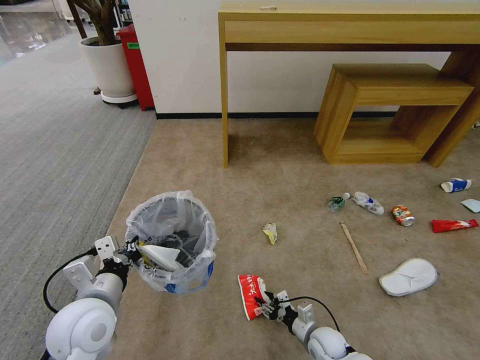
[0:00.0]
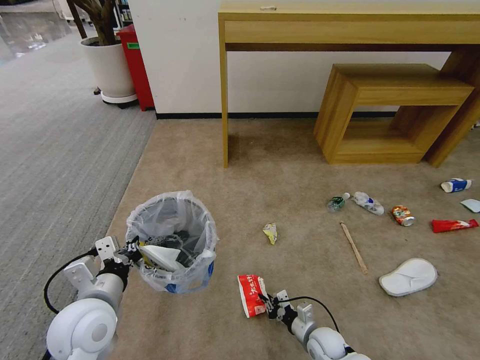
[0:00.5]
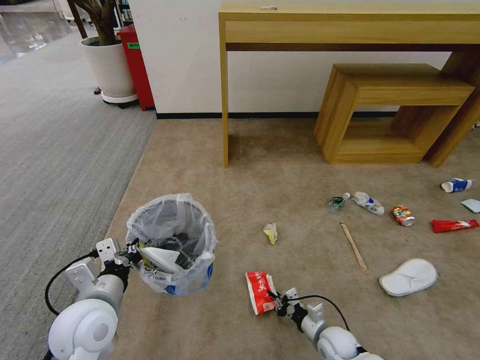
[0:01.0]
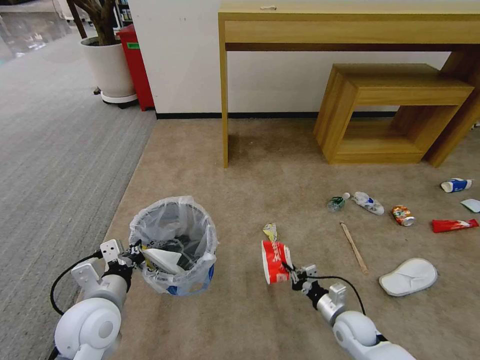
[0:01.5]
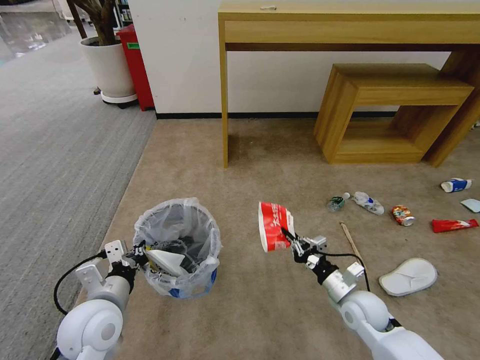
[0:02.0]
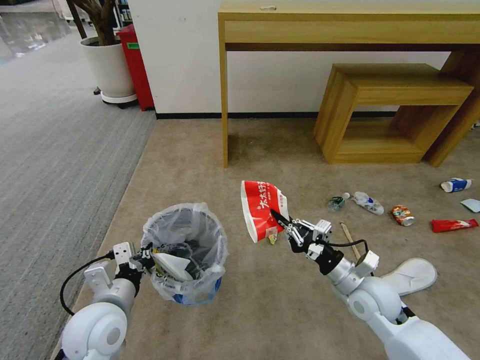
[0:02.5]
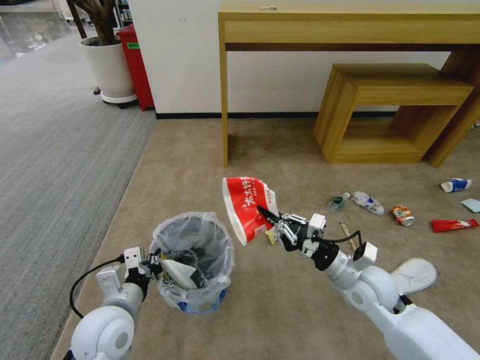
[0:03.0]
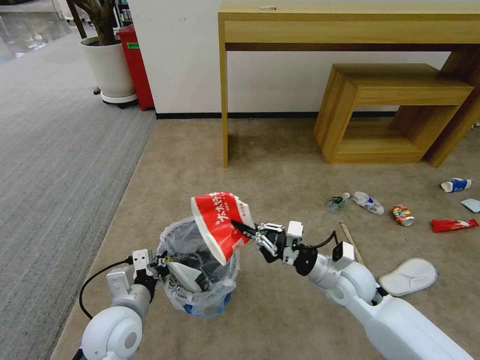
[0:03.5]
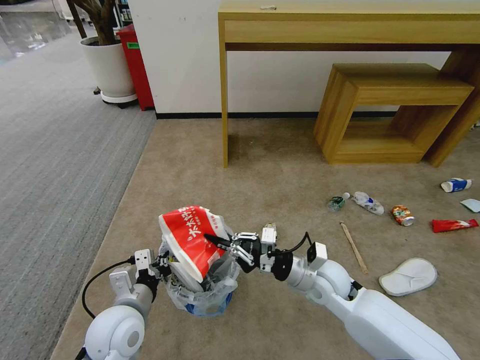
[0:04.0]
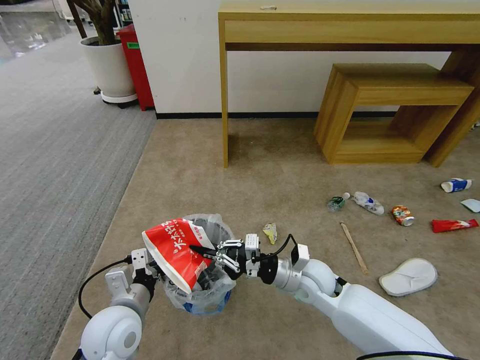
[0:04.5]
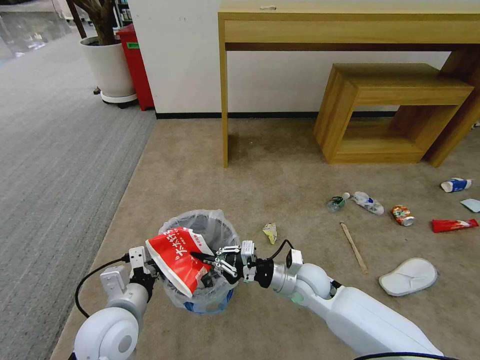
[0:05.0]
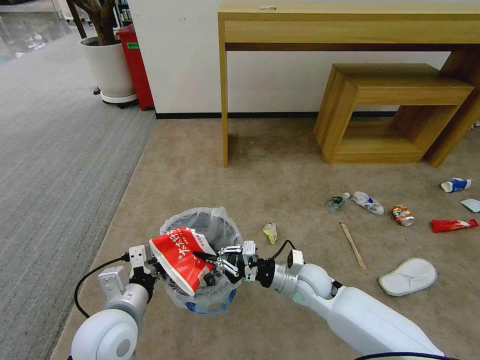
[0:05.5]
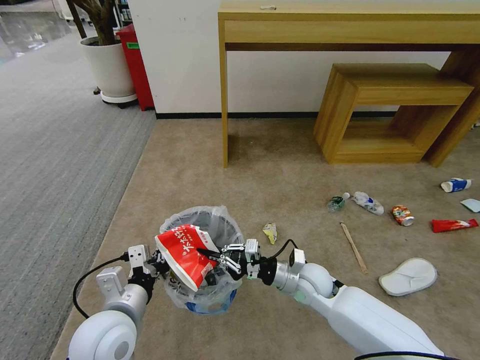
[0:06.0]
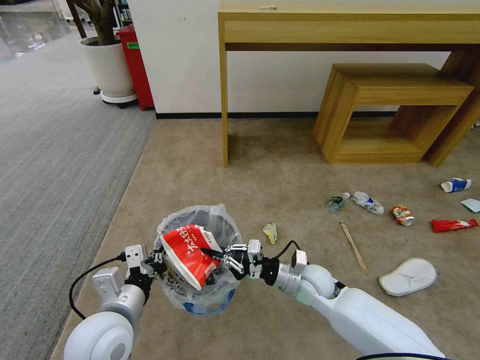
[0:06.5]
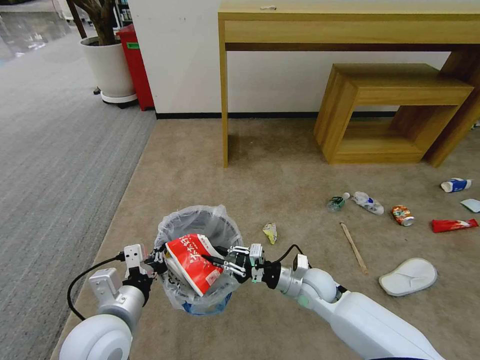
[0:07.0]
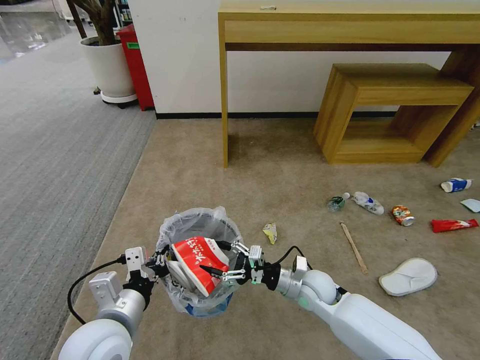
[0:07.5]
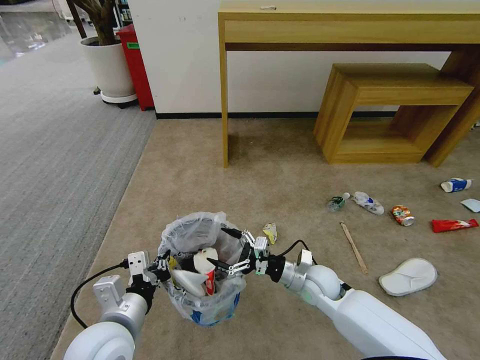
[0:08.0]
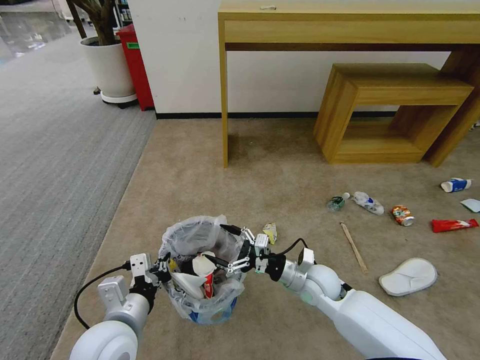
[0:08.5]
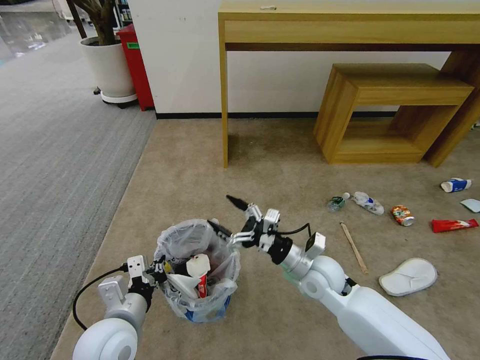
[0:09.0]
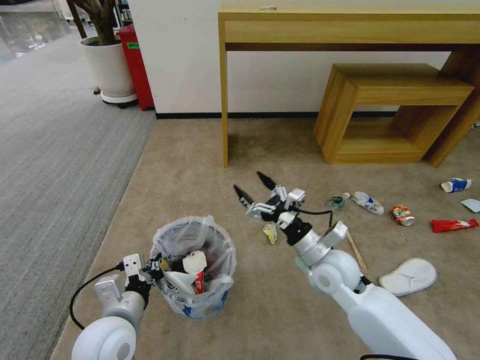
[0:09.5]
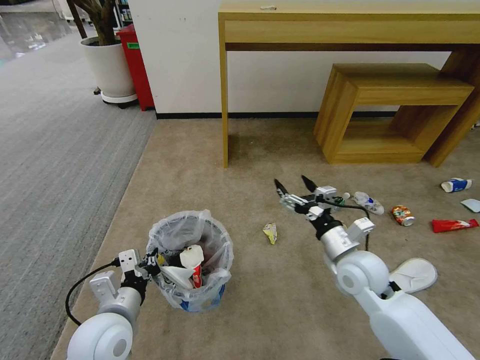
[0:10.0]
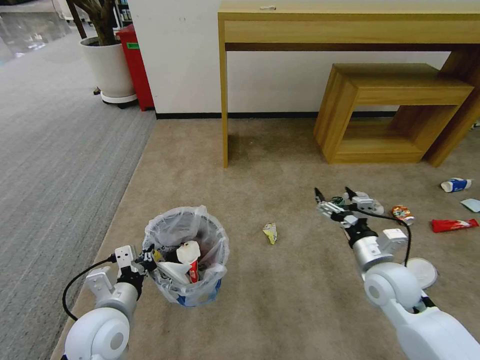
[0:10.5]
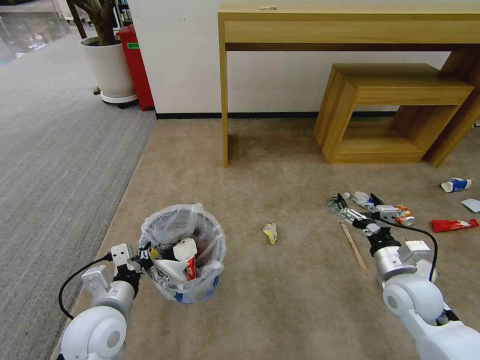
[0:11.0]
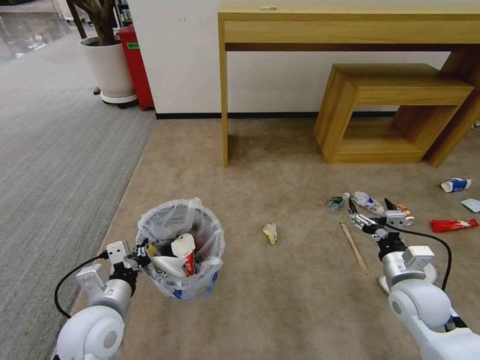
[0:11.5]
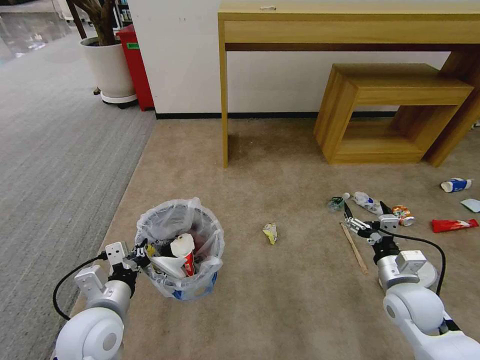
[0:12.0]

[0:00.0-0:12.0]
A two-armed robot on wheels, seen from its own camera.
Task of the whole recording: Pick up the trash bin and place the garbage on the floor into it.
0:00.0 to 0:02.0: The right gripper shifts roughly 15 cm upward, and closes its fingers.
0:02.0 to 0:04.0: The right gripper heads to the left and upward, covering approximately 15 cm.
0:04.0 to 0:06.0: The right gripper goes some 5 cm downward.
0:06.0 to 0:08.0: The right gripper opens.
0:08.0 to 0:10.0: The right gripper travels upward and to the right by approximately 10 cm.
0:10.0 to 0:12.0: The right gripper goes approximately 10 cm to the right and backward.

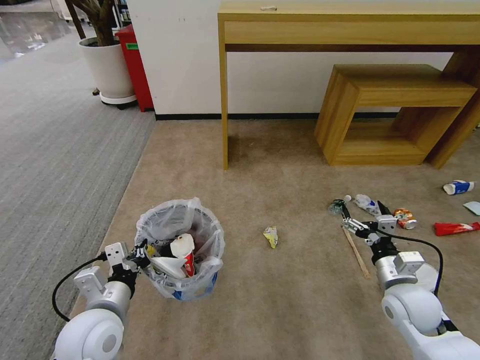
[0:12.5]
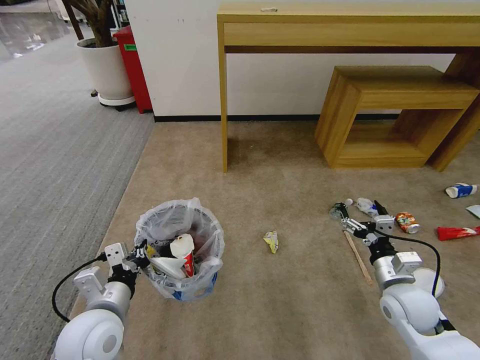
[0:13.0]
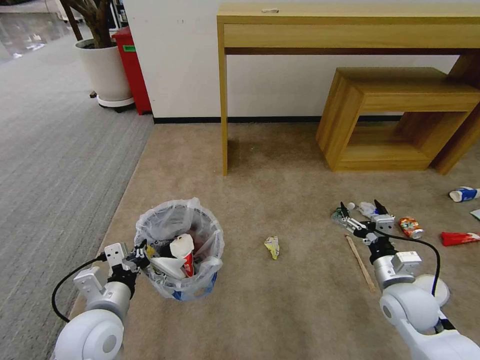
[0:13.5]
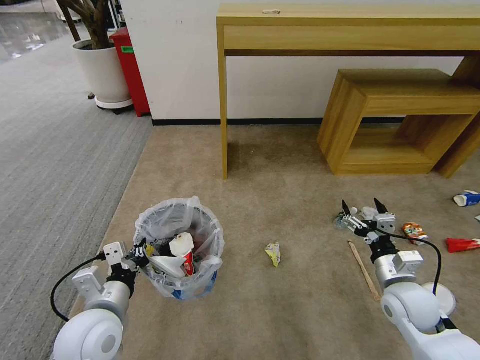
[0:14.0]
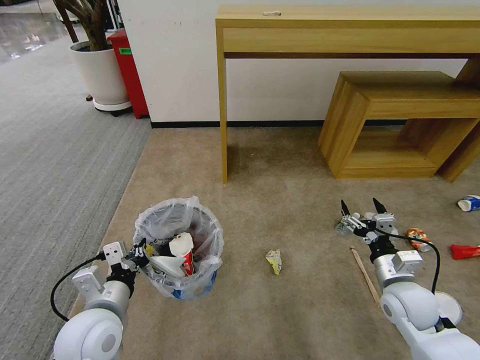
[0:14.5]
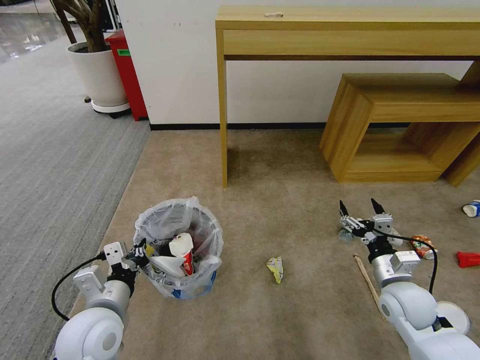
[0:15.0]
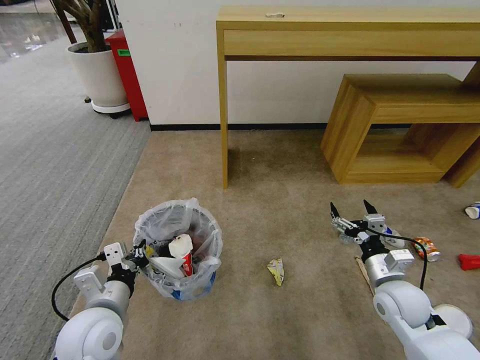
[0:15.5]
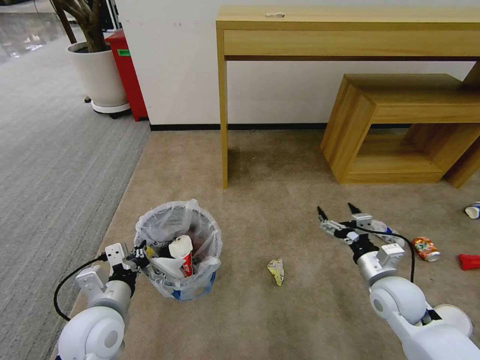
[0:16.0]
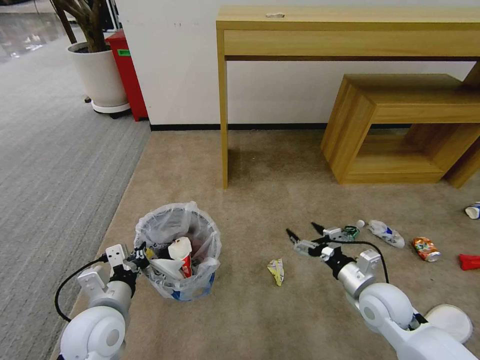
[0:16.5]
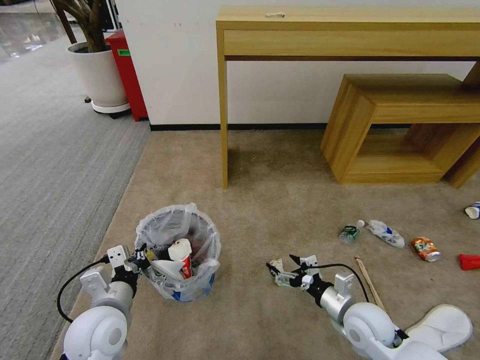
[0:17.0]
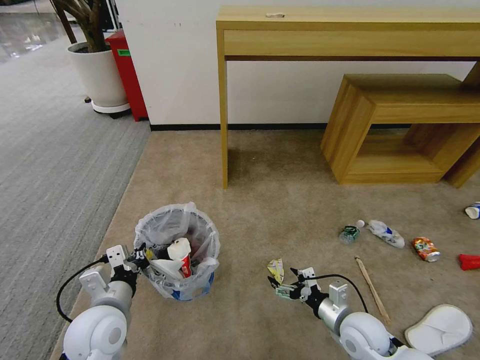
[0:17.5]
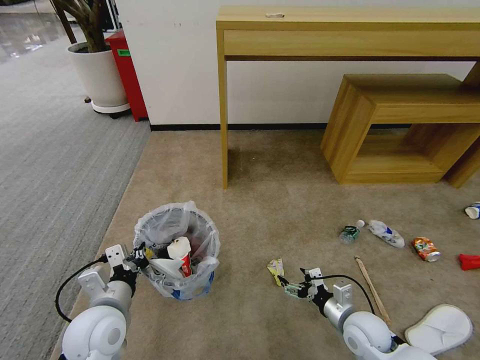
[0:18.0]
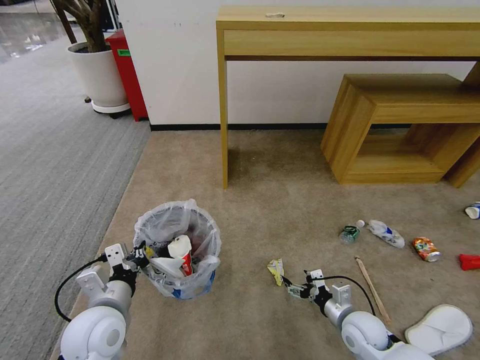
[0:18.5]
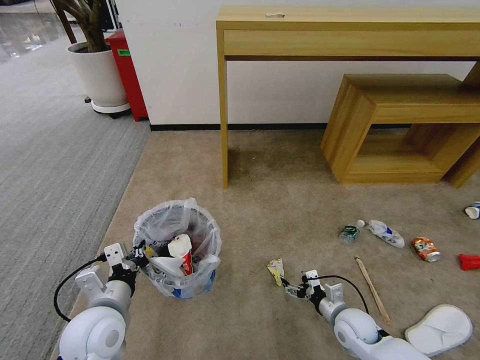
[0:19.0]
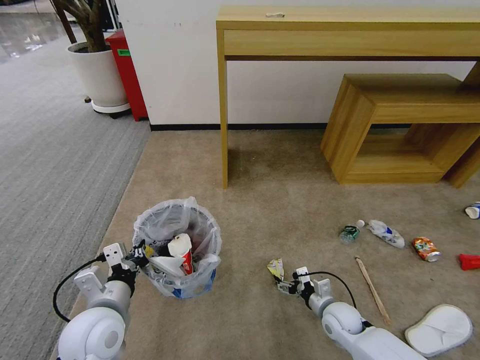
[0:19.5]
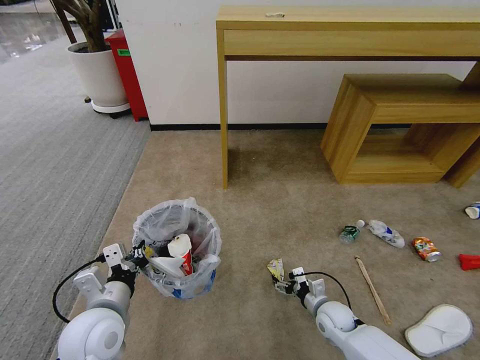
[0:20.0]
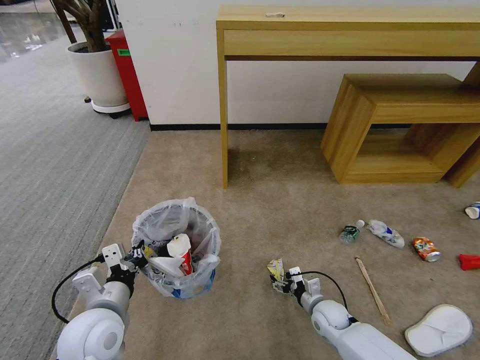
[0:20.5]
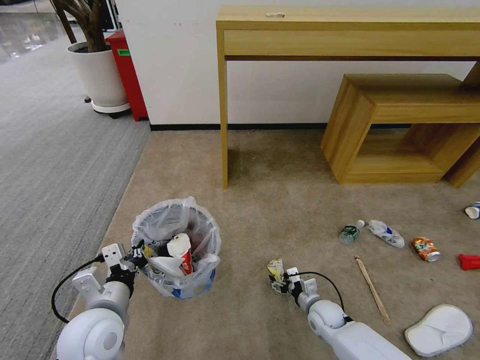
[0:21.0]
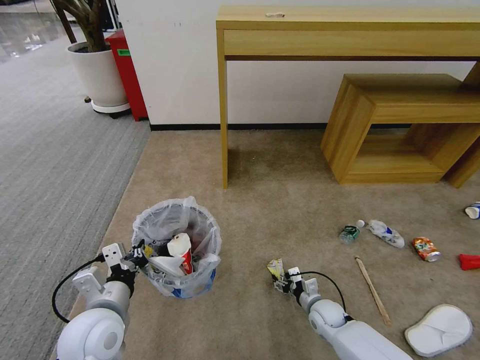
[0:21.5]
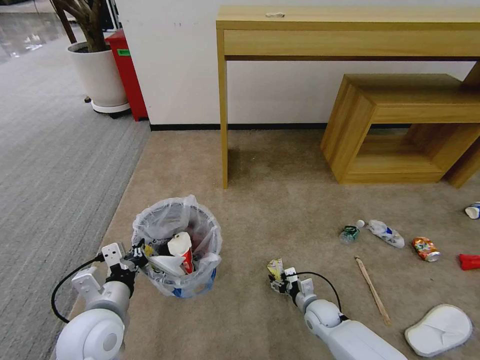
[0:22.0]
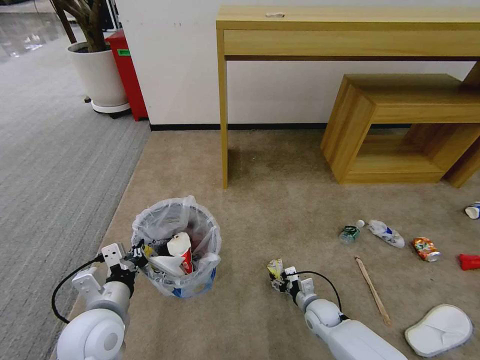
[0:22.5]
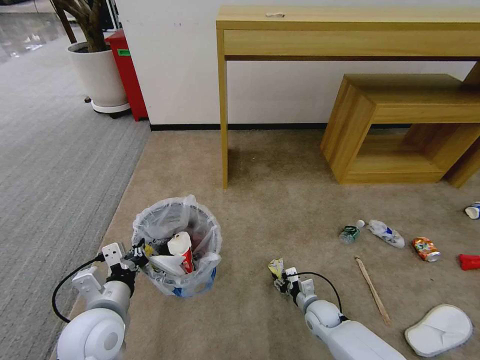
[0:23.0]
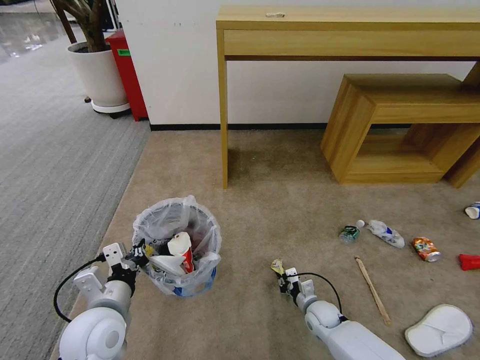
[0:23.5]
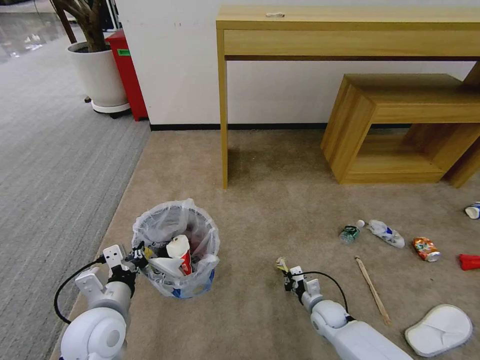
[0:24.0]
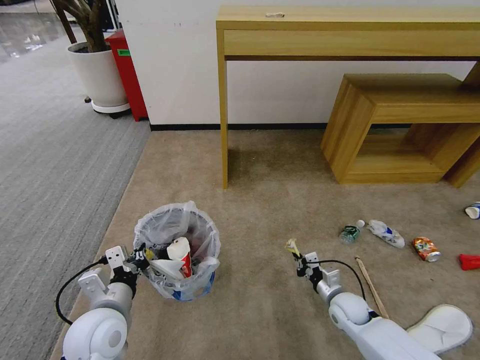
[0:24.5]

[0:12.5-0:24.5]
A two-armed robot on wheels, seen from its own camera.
Task of the whole recording: Pick up the trash bin and place the garbage on the floor into it.
0:12.5 to 0:14.5: Both grippers stay put.
0:16.5 to 0:18.5: The right gripper is displaced downward by about 10 cm.
0:18.5 to 0:20.5: The right gripper moves downward and forward, approximately 10 cm.
0:20.5 to 0:22.5: The grippers make only small movements.
0:22.5 to 0:24.5: The right gripper travels upward and to the right by about 10 cm, and closes.

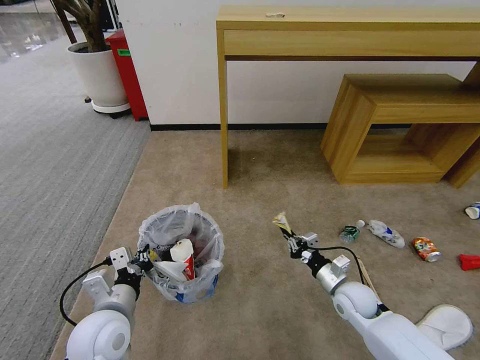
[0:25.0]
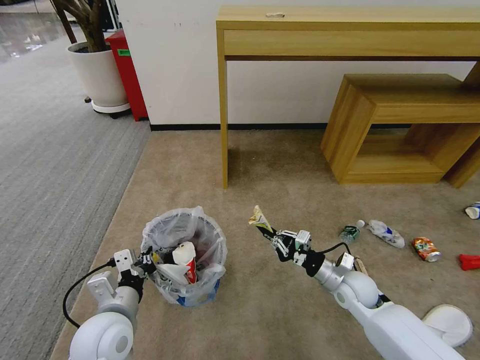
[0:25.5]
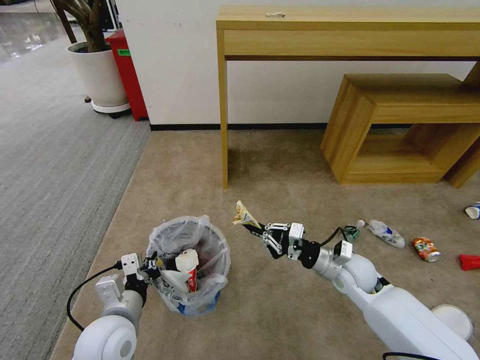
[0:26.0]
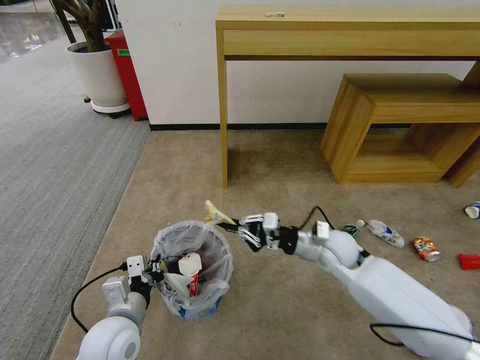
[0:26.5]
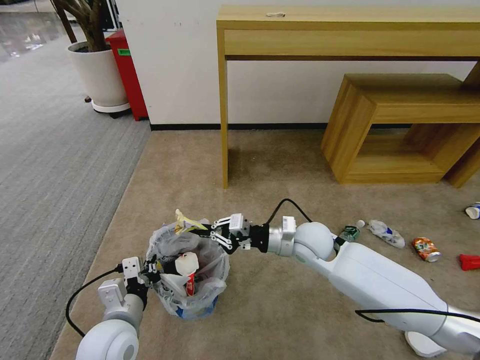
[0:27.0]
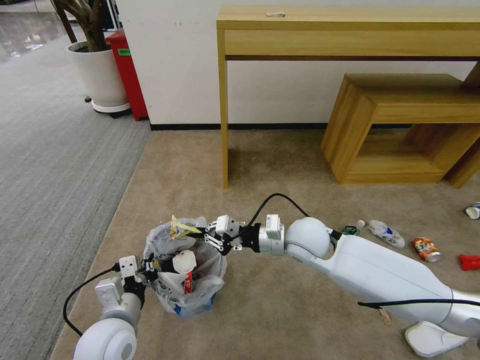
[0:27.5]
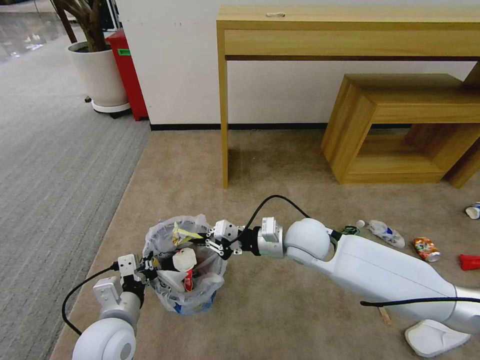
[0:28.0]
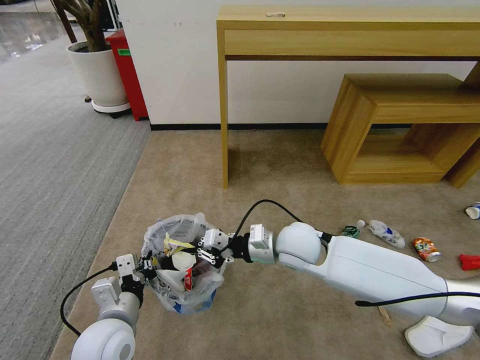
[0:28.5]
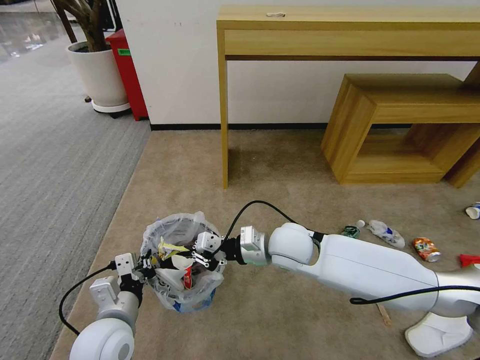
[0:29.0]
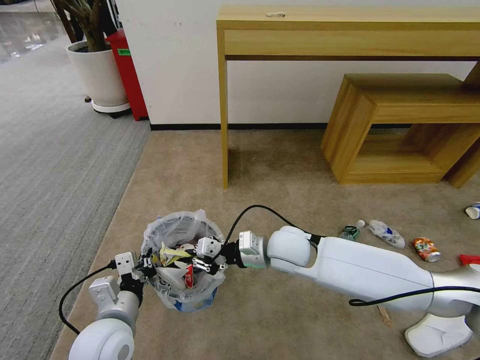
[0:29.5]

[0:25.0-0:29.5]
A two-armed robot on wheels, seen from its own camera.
Task of the whole recording: Pick up the trash bin and place the garbage on the floor into it.
0:25.0 to 0:27.0: The right gripper travels upward, to the left and forward by roughly 20 cm.
0:27.0 to 0:29.5: The right gripper moves to the left, about 5 cm.
